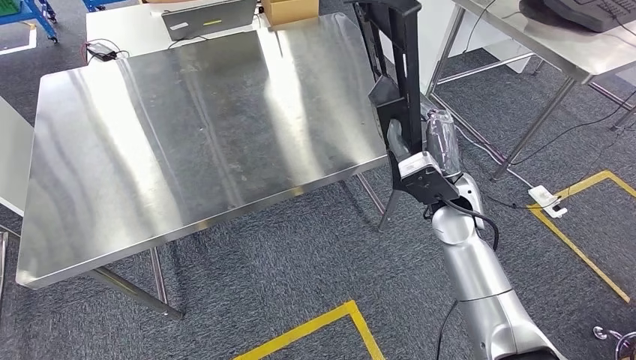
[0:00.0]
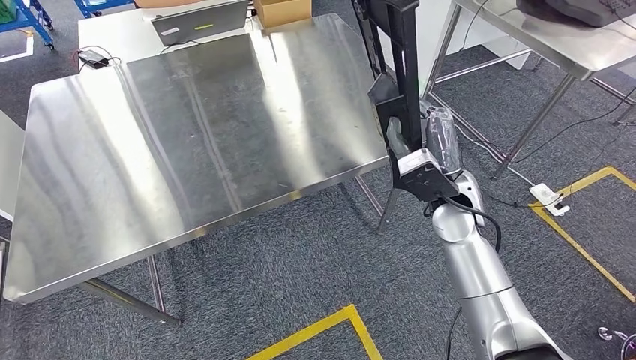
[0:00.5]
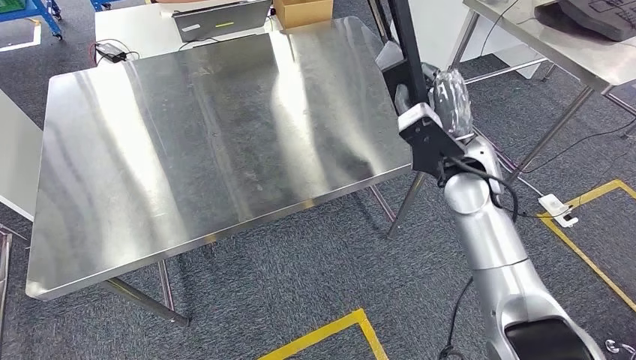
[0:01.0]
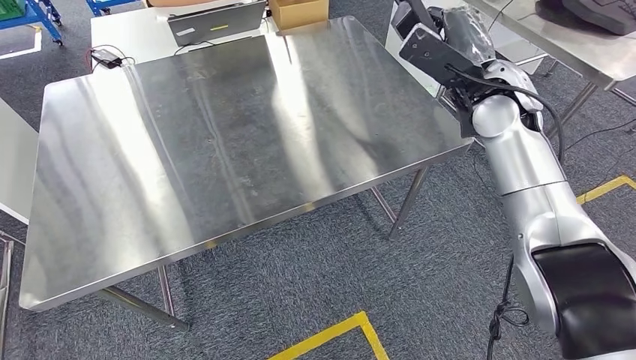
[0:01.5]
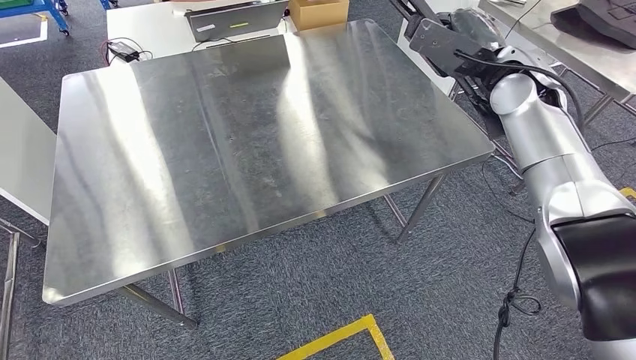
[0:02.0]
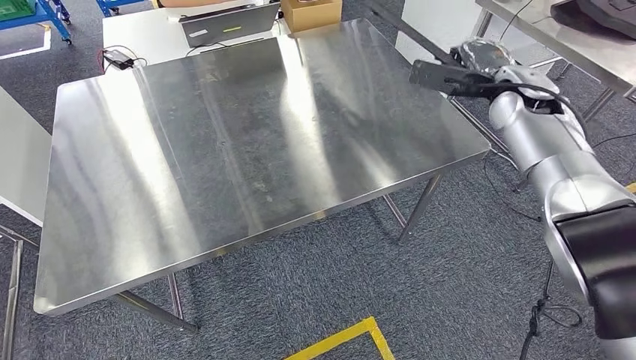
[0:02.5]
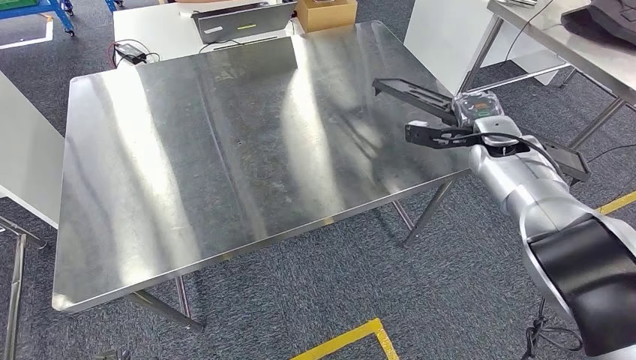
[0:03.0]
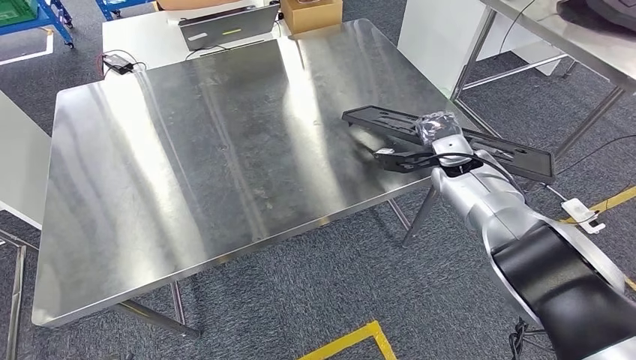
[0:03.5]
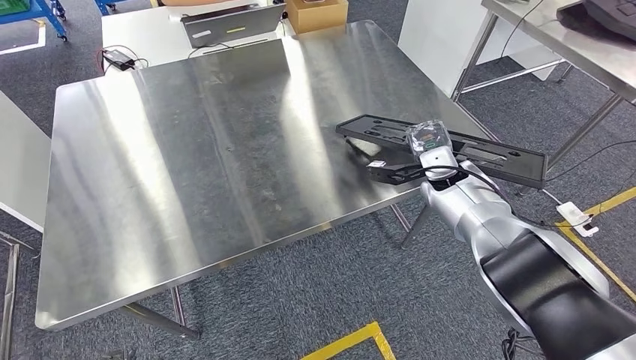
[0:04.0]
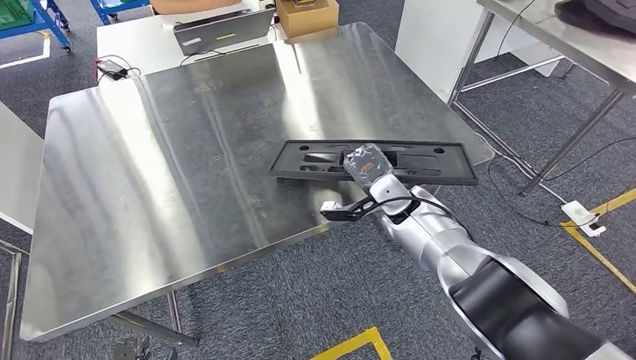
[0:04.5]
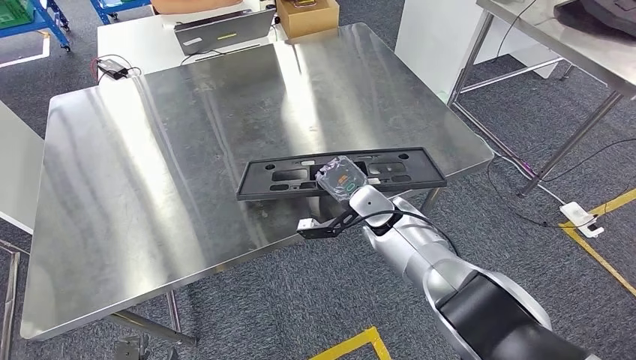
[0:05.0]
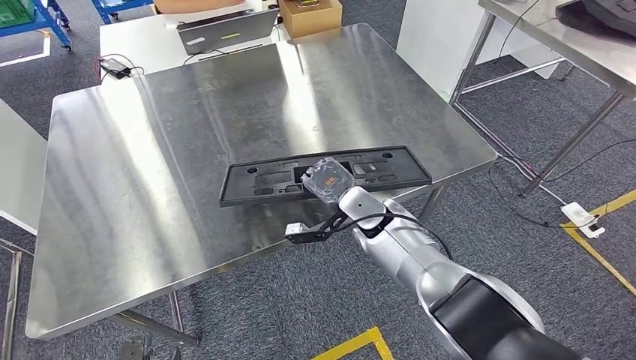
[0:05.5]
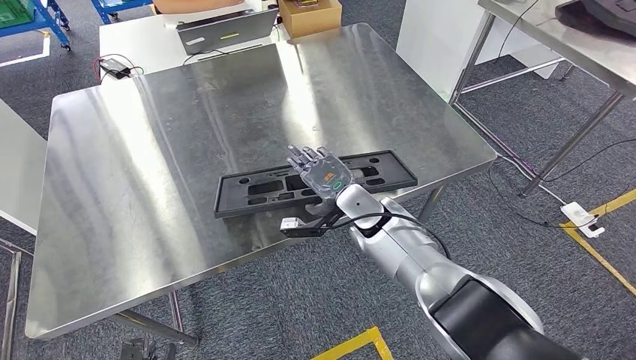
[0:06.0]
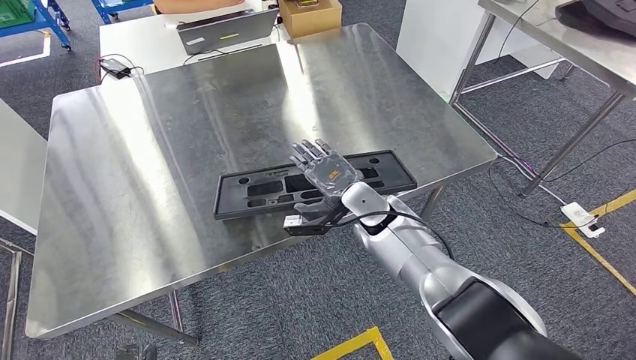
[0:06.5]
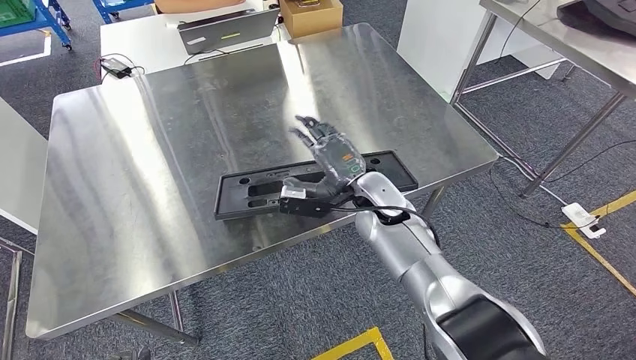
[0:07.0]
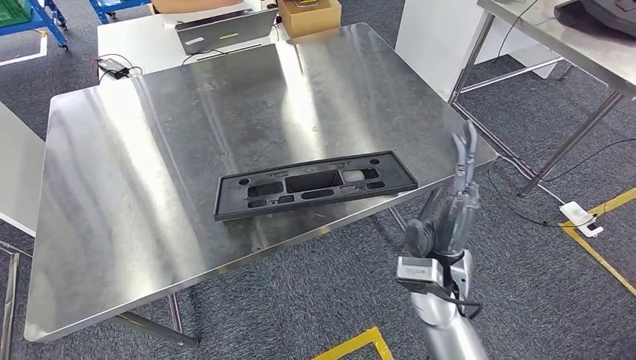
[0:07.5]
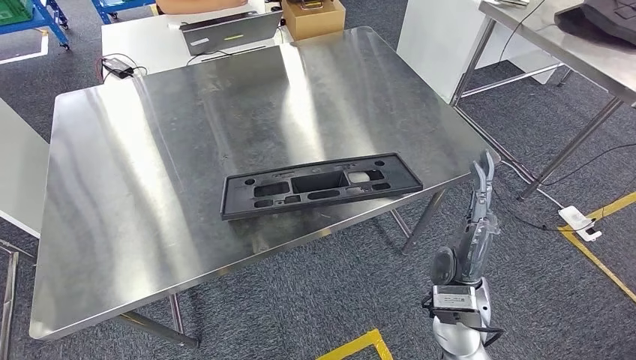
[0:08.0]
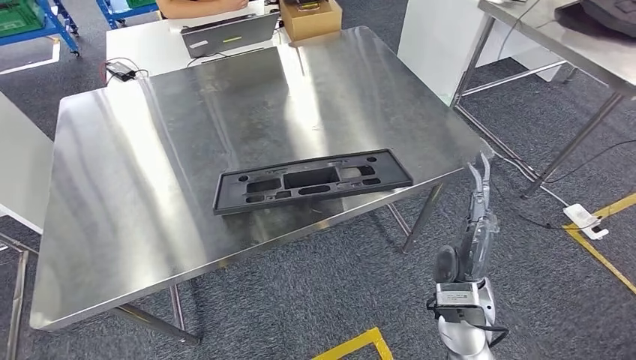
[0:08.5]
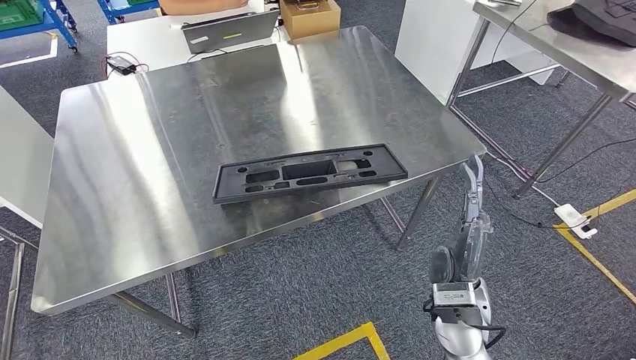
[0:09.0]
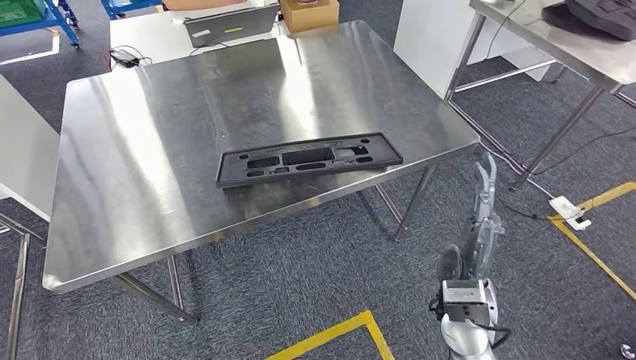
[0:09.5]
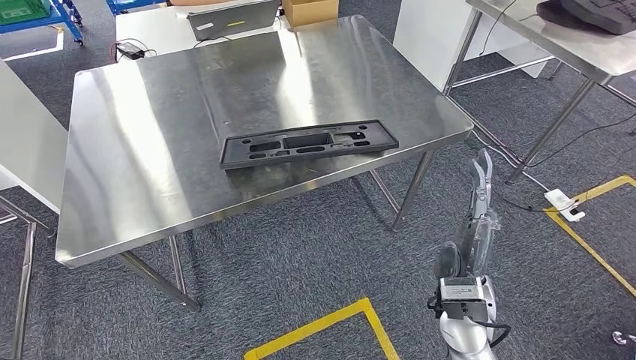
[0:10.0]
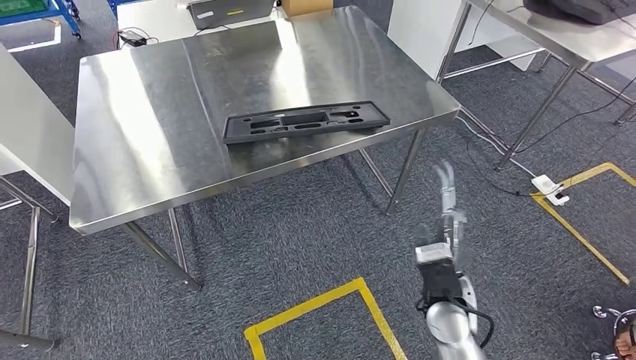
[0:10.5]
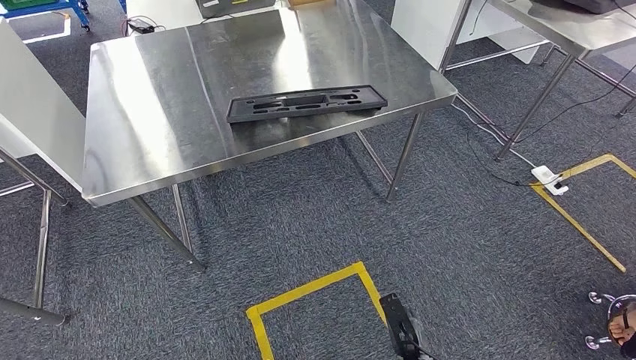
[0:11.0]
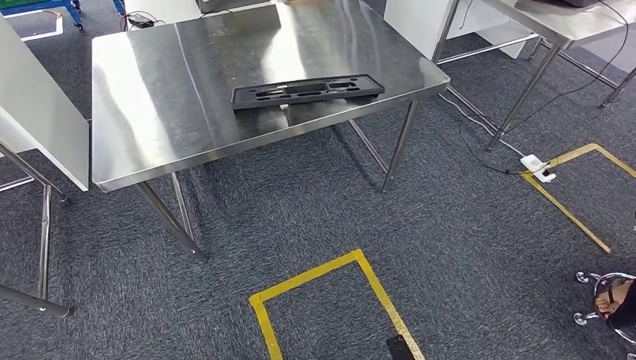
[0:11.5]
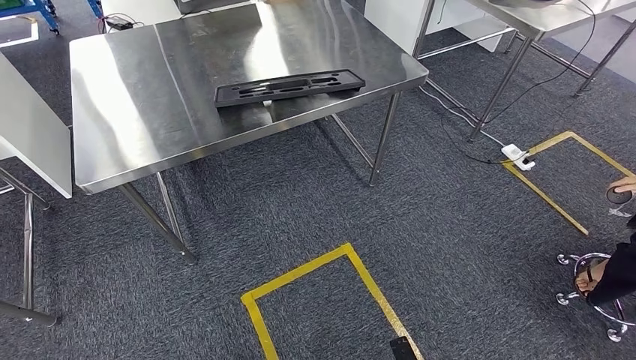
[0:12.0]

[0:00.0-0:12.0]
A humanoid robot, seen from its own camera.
0:06.0 to 0:08.0: The right hand goes approximately 20 cm backward and to the right; the left hand heads backward, covering roughly 5 cm.

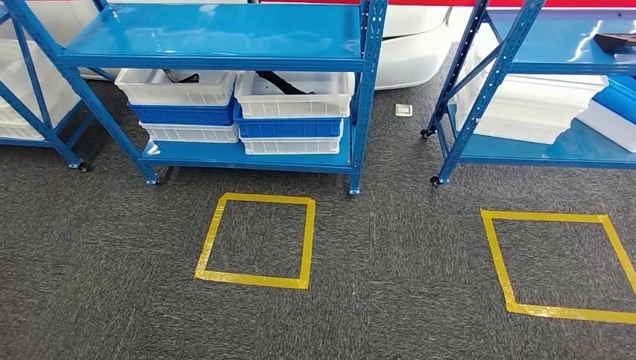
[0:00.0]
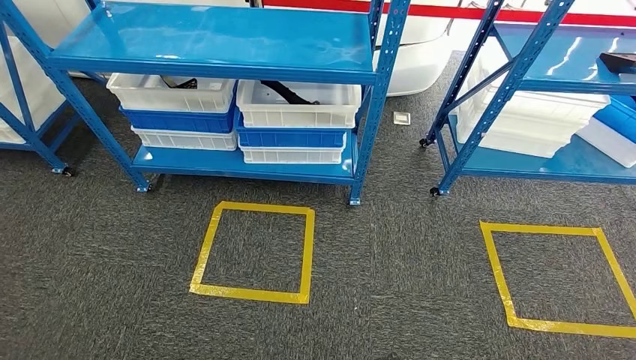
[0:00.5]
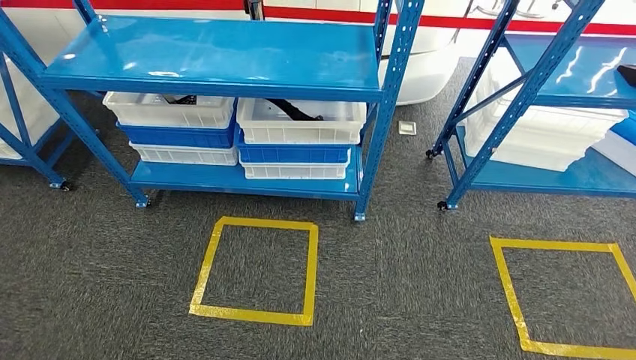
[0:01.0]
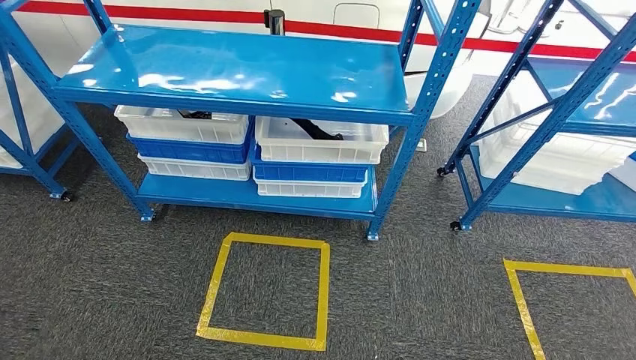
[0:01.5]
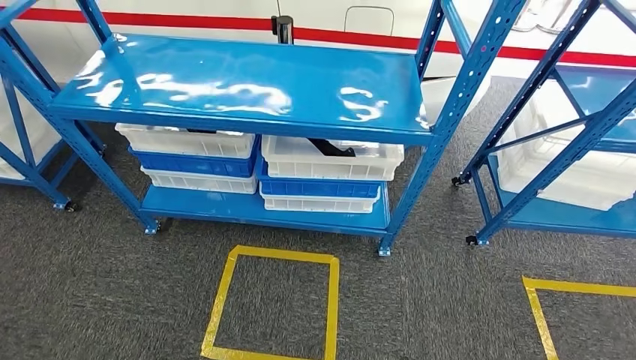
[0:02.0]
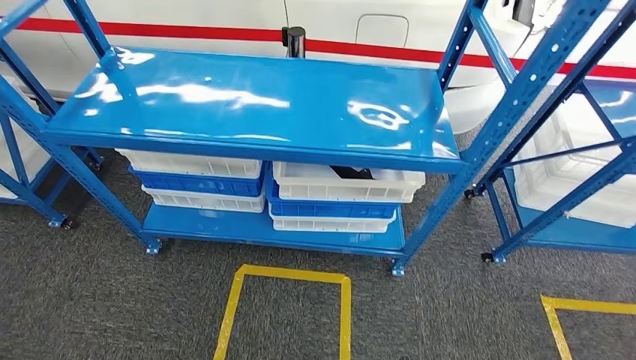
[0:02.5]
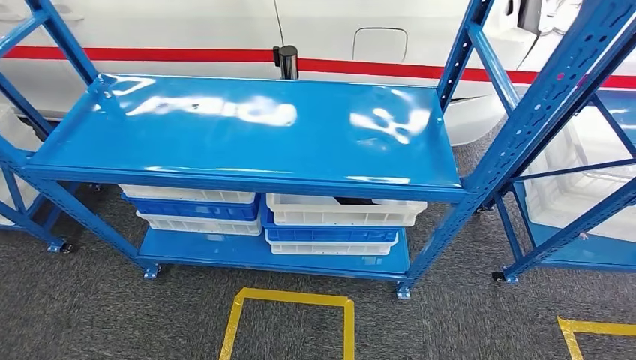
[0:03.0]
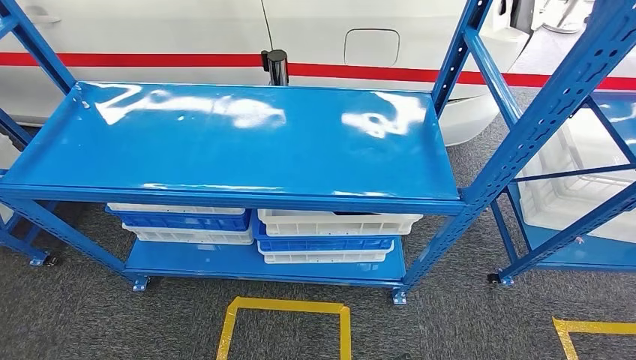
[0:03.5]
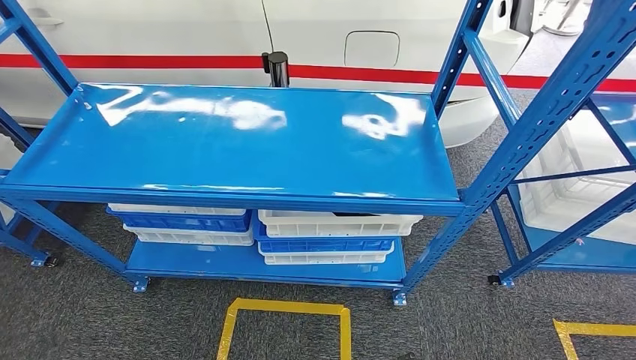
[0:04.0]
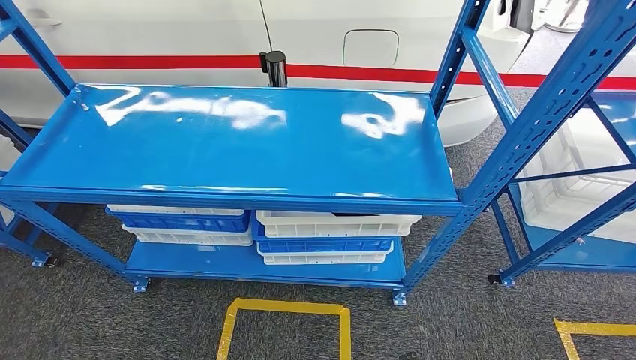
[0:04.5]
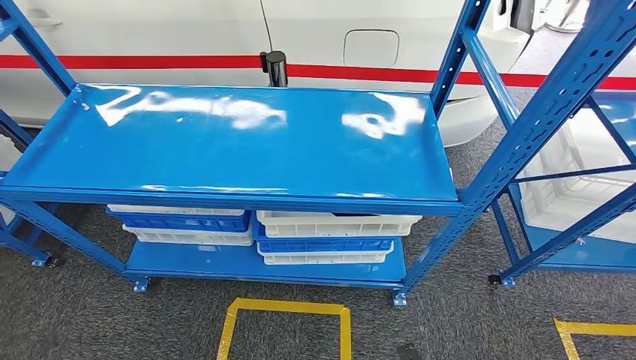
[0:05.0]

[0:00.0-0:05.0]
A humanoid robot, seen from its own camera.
Step, 0:00.0 to 0:05.0: Move to the initial position of the shelf.
